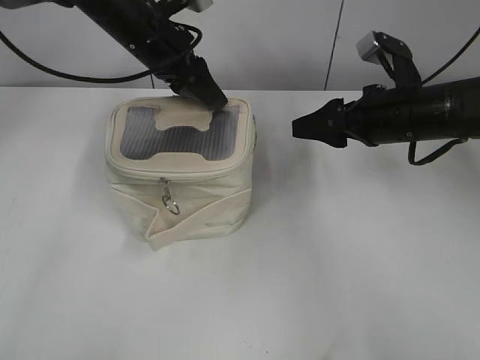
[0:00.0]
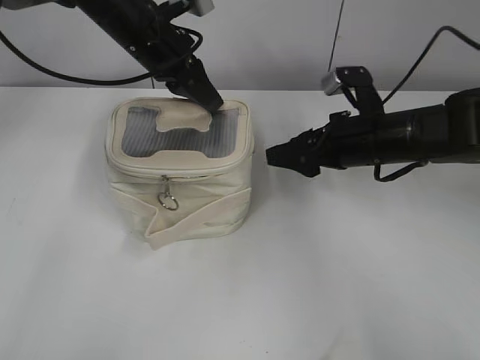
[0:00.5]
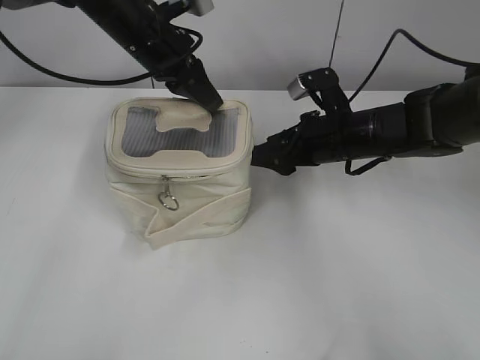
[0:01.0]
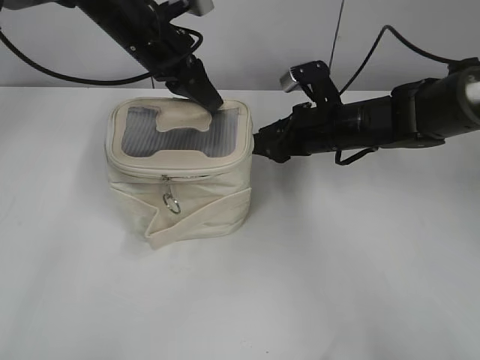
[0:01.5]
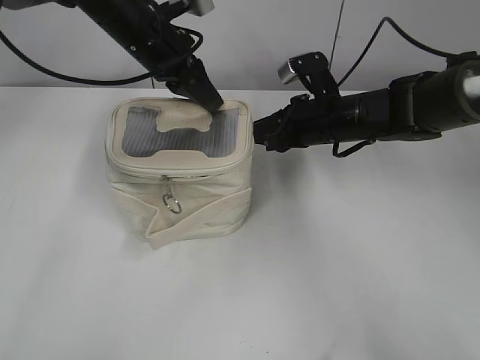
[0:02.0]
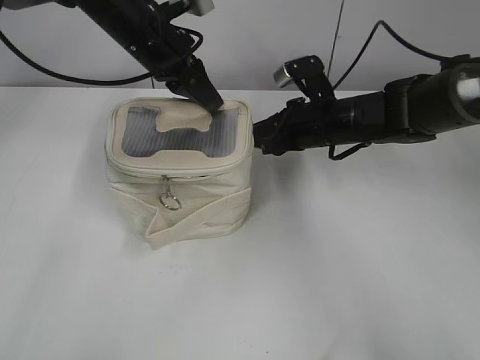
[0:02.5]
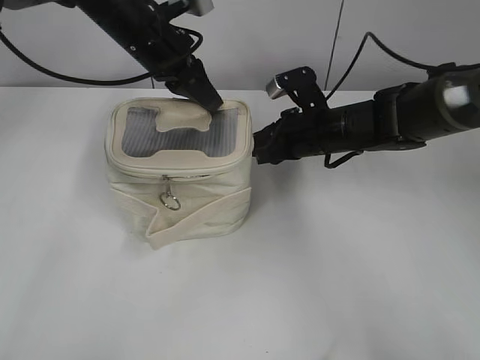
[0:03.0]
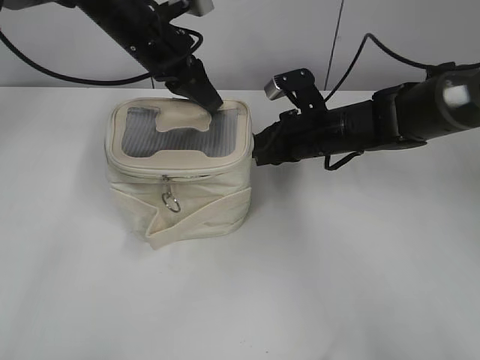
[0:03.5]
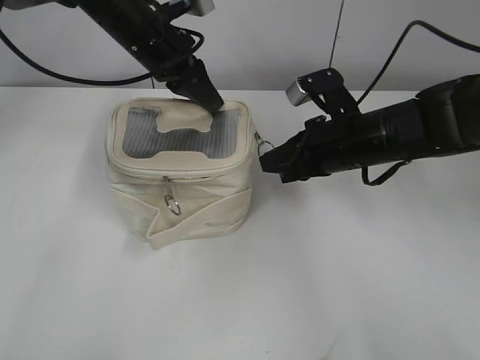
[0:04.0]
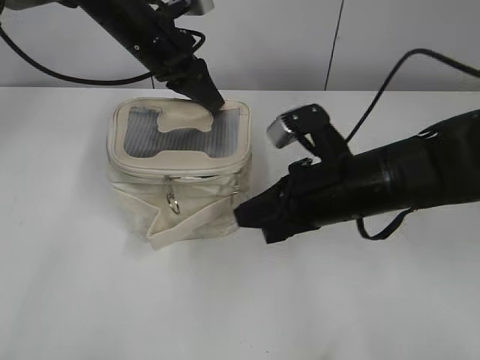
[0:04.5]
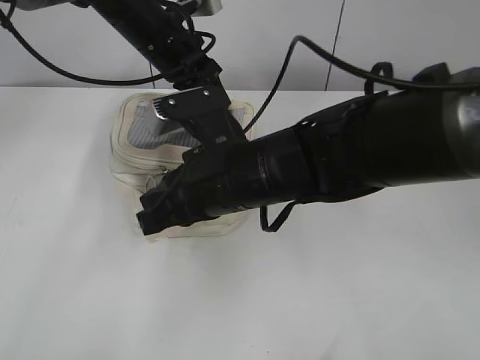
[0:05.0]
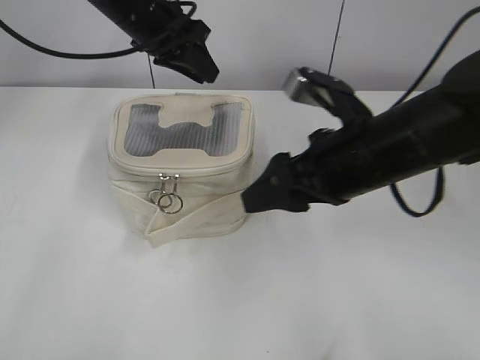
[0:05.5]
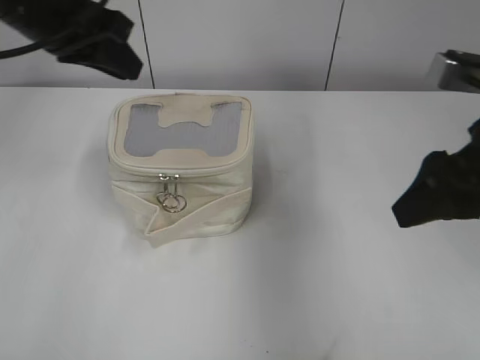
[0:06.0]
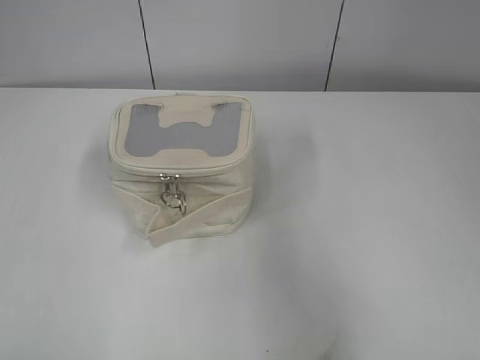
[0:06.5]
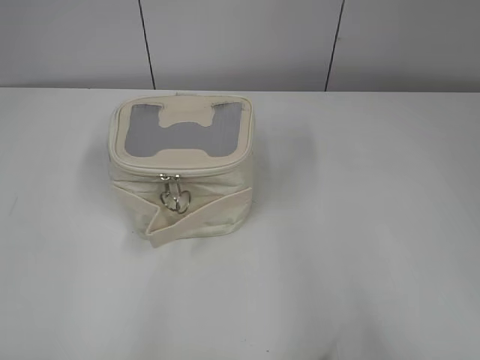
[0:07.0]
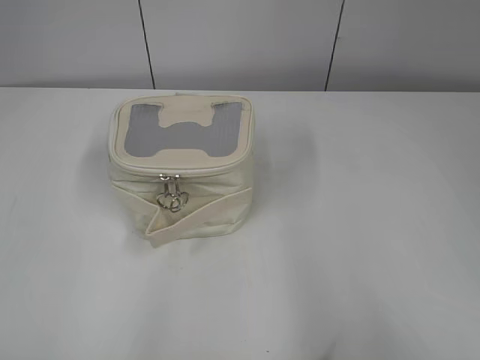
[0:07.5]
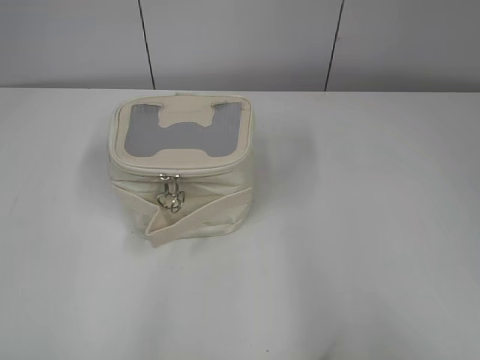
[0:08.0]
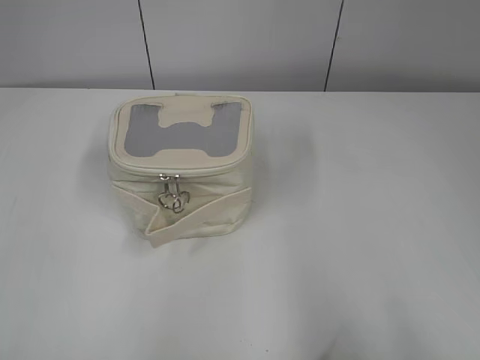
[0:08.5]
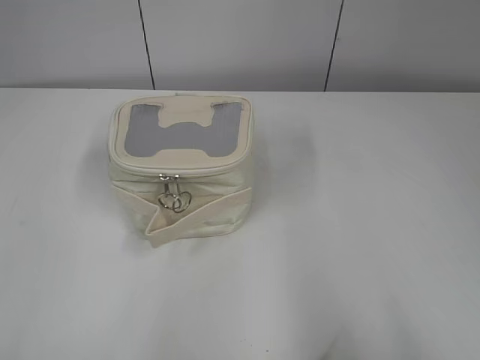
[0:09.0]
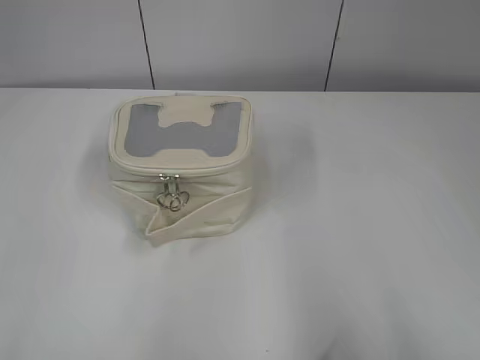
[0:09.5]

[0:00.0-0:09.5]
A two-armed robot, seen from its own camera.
Step, 0:00.0 to 0:05.0: Zip up the bag with your right hand.
0:00.0 to 0:02.0: The left gripper closes up; the right gripper shifts about 5 cm to the left, and closes.
0:02.0 to 0:04.0: The right gripper travels backward by approximately 5 cm, and closes up.
0:04.0 to 0:05.5: The left gripper opens its fingers, while the right gripper shifts roughly 10 cm backward and upward, moves about 15 cm to the left and comes back, and opens up.
0:05.5 to 0:07.5: The right gripper moves backward and to the right, about 30 cm; the left gripper travels backward and to the left by approximately 50 cm, and opens.

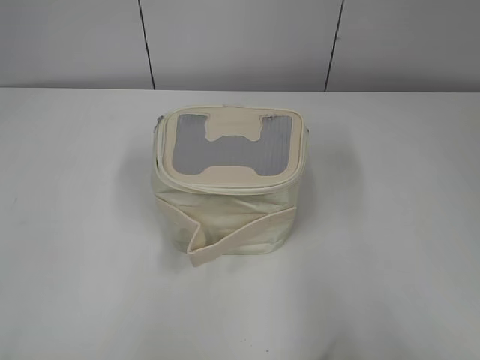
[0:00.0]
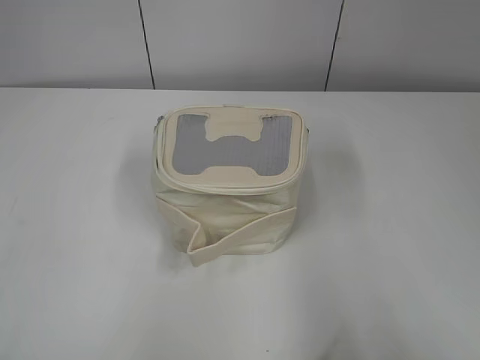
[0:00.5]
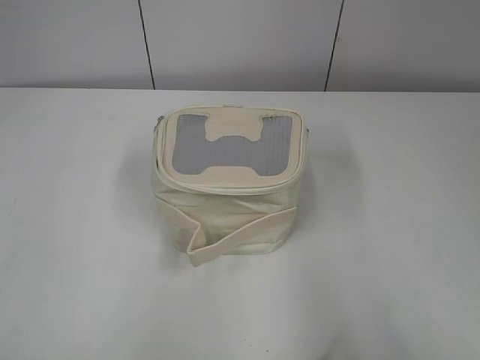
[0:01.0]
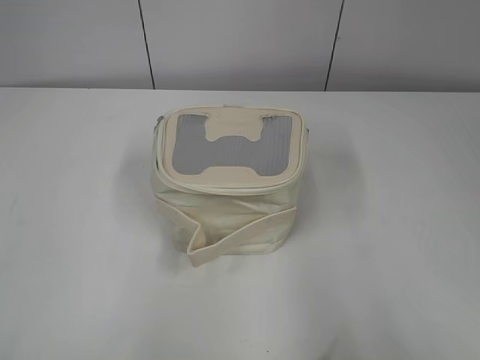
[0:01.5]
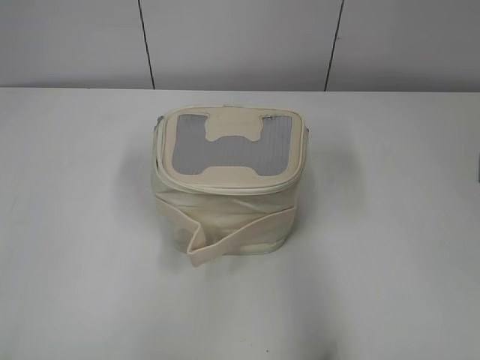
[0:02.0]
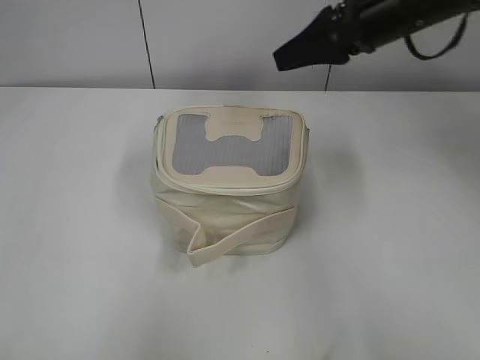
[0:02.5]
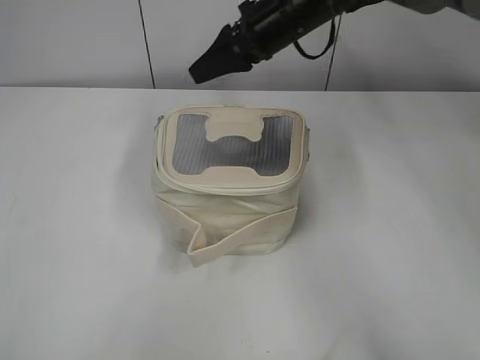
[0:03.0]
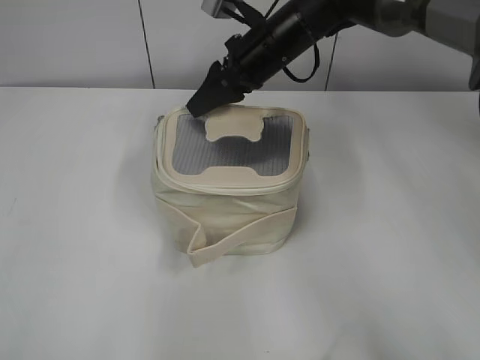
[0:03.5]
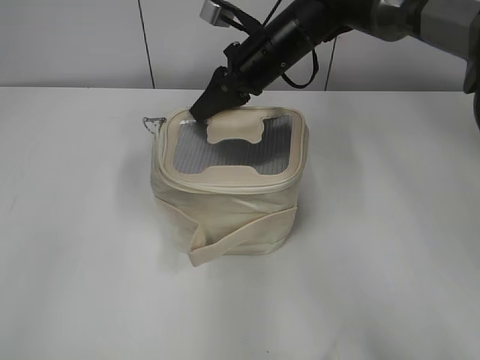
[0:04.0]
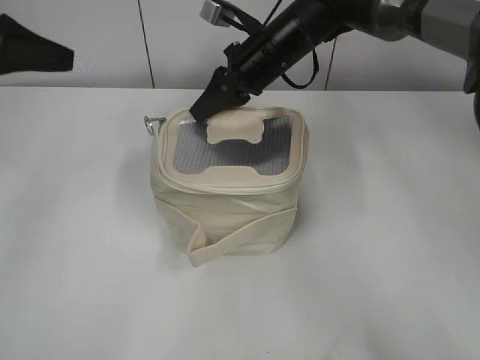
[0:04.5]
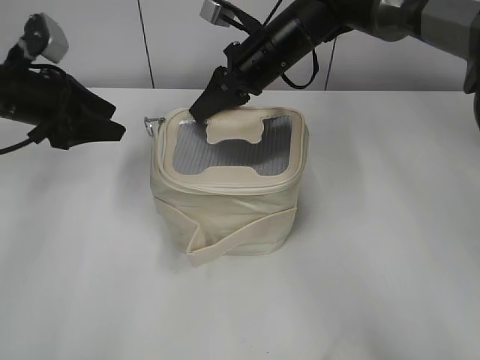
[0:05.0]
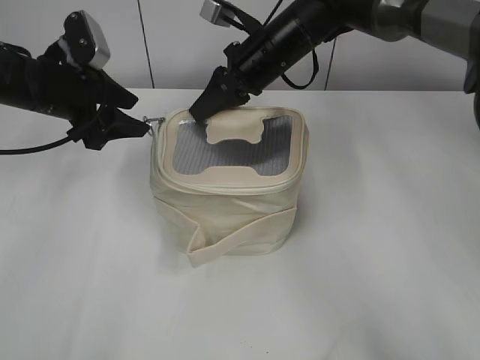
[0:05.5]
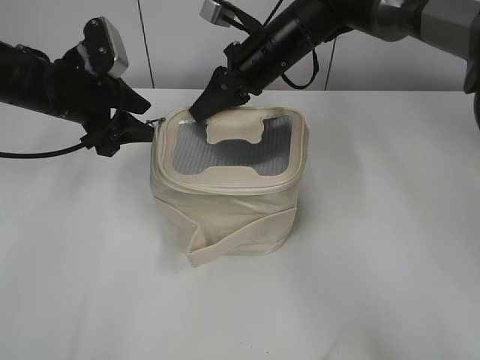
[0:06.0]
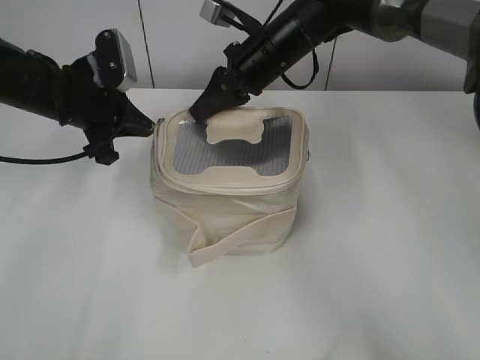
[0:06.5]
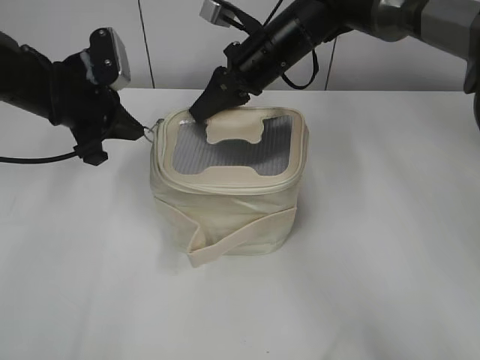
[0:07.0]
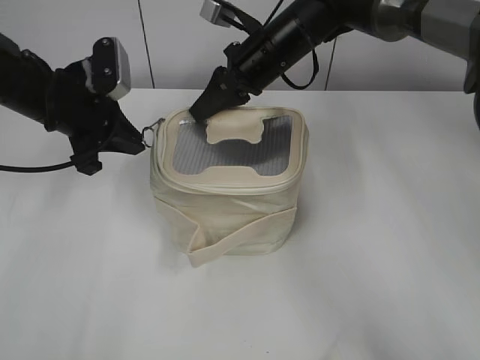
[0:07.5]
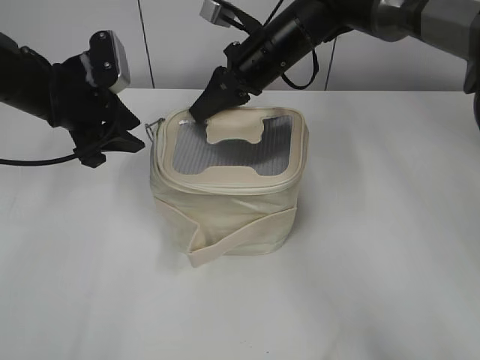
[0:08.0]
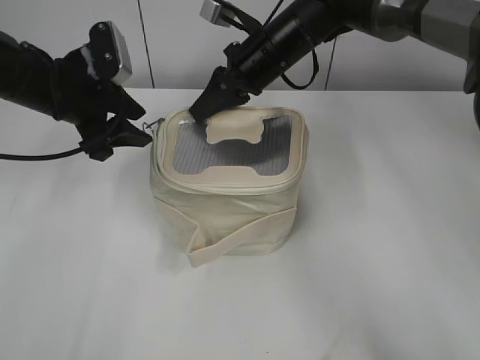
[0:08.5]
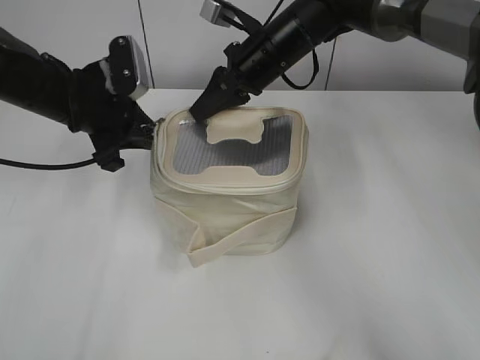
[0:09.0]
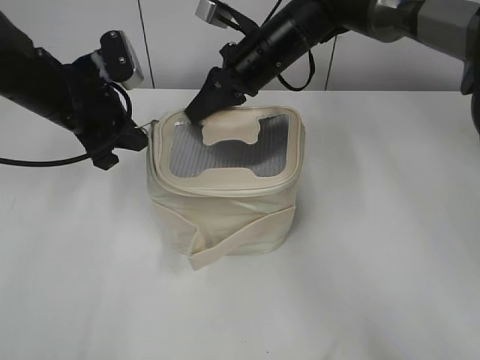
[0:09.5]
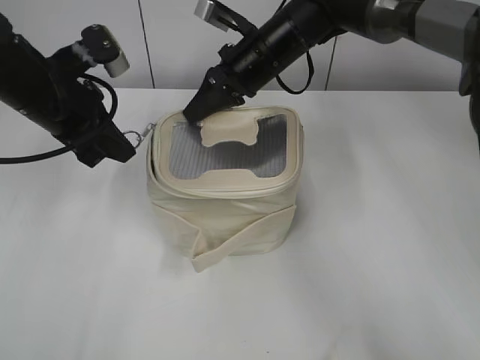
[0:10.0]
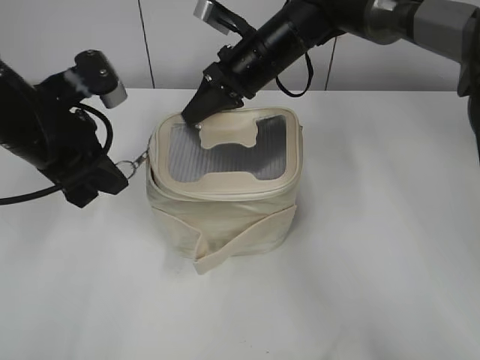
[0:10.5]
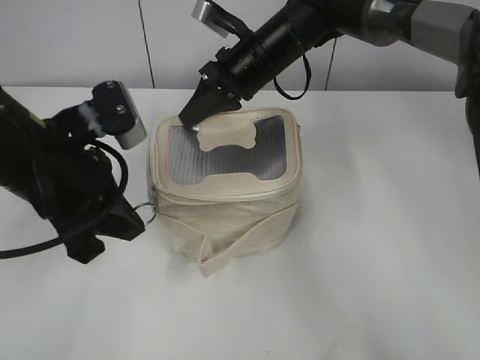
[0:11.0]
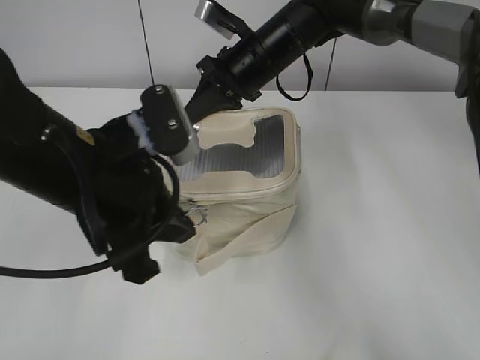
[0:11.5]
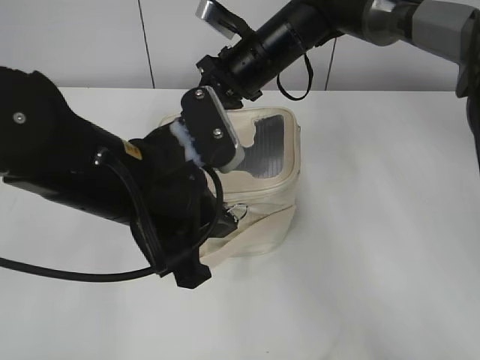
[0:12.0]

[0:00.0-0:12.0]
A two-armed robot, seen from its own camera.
0:02.0 to 0:04.0: The left gripper goes about 15 cm forward. The right gripper moves forward and to the left, about 40 cm, and closes its fingers.
0:04.0 to 0:06.0: The left gripper goes about 30 cm forward and downward, and opens.
0:06.0 to 0:08.0: The left gripper closes and opens again.
0:08.0 to 0:10.0: The left gripper closes its fingers.
0:10.0 to 0:12.0: The left gripper heads backward and to the right, covering about 15 cm.

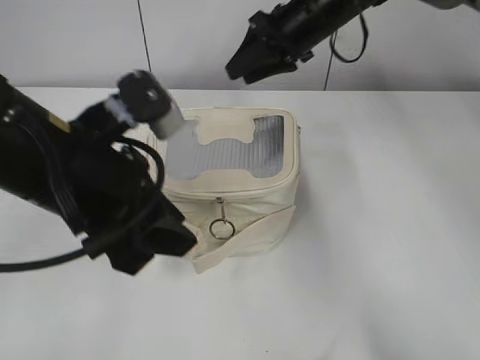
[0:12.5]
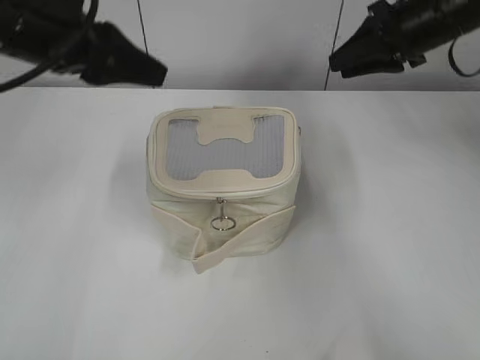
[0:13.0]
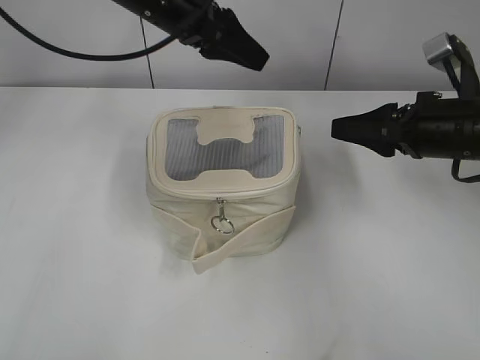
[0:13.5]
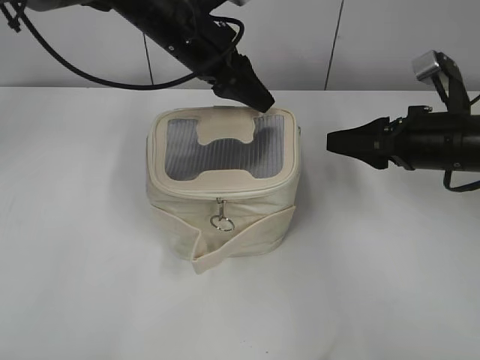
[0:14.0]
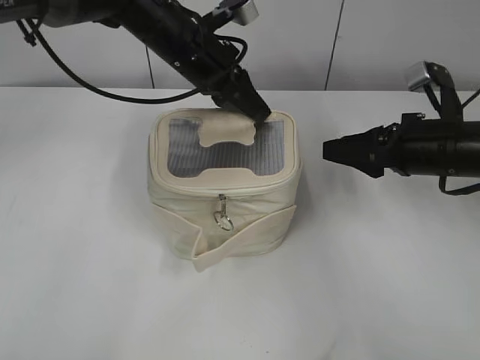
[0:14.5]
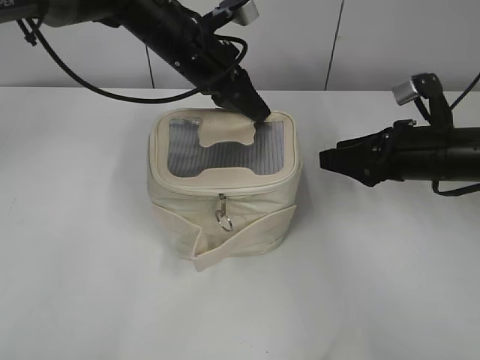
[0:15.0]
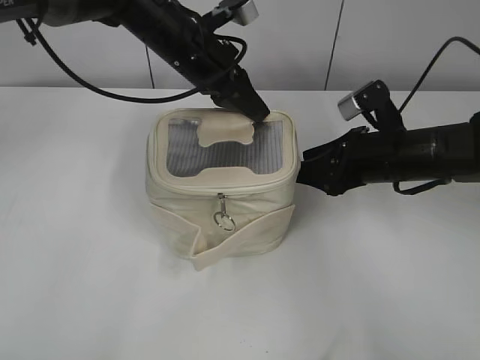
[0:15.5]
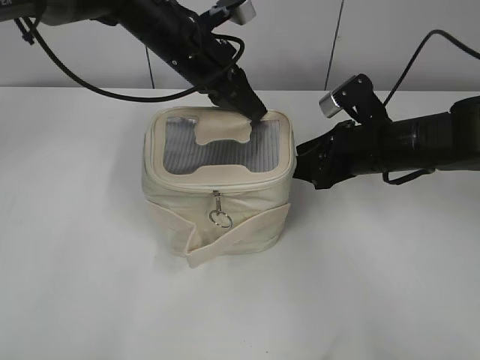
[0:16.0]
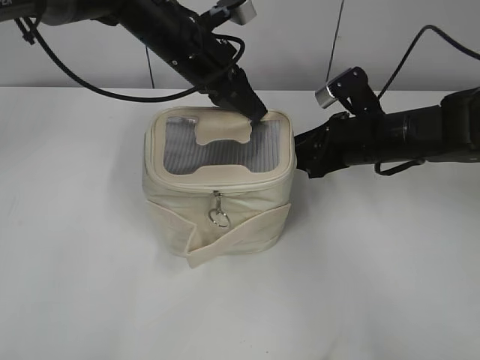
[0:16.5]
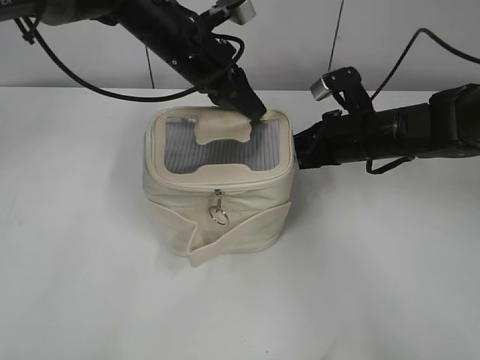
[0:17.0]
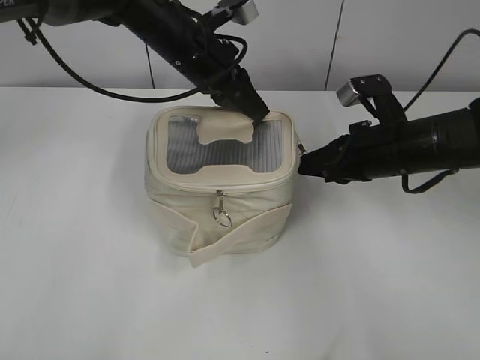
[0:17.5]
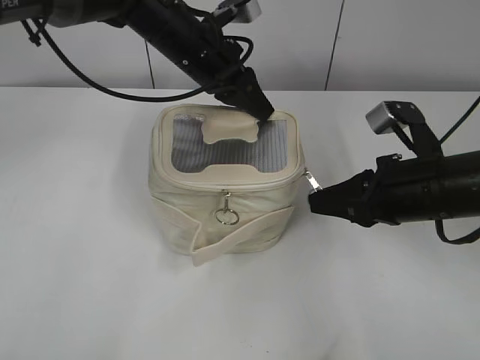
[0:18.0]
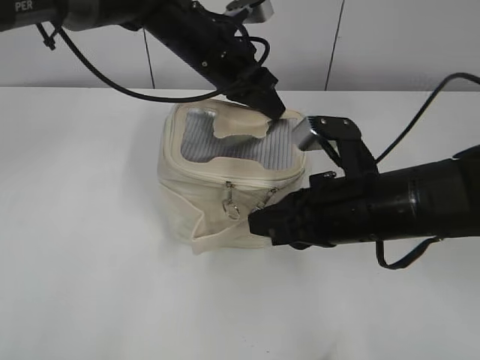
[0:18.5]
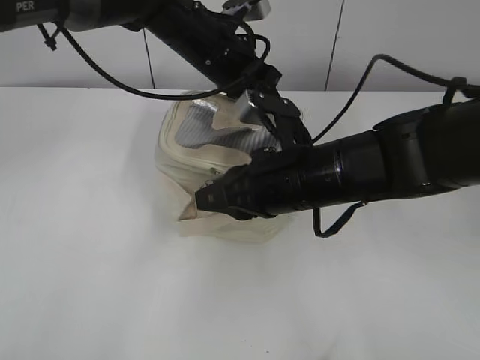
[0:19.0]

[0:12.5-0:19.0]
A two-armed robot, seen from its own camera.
0:12.5 to 0:14.5: The left gripper is displaced forward by approximately 25 cm; the right gripper travels backward, to the right and downward by some 25 cm.
0:14.5 to 0:17.0: The right gripper moves to the left and forward, approximately 10 cm, and closes up.
0:17.0 to 0:19.0: The right gripper shifts approximately 15 cm backward and to the left.
